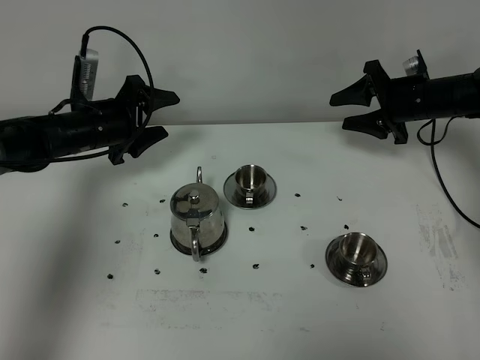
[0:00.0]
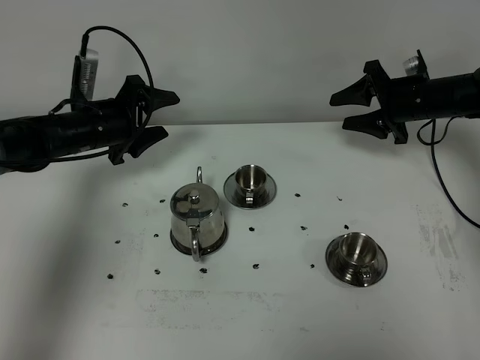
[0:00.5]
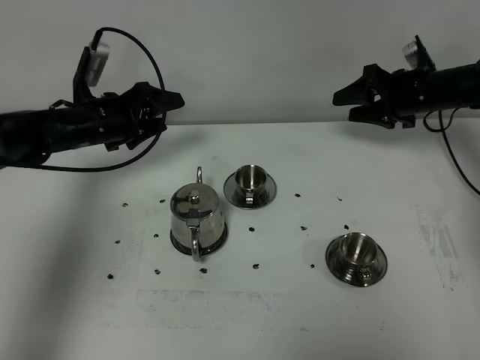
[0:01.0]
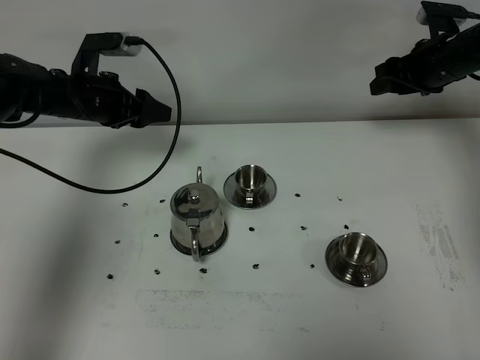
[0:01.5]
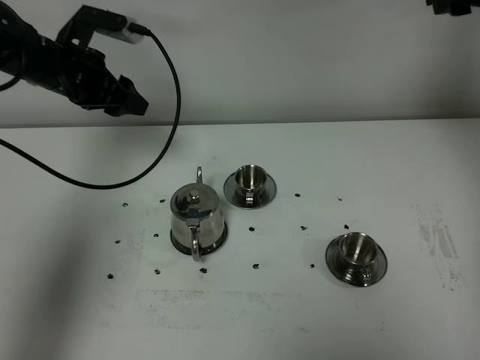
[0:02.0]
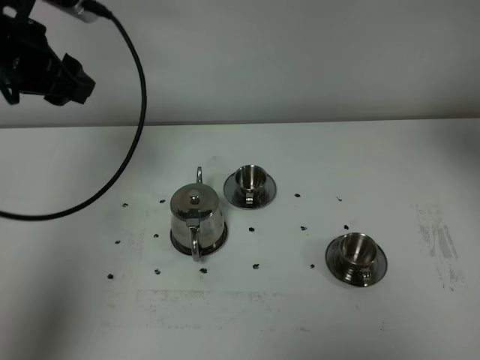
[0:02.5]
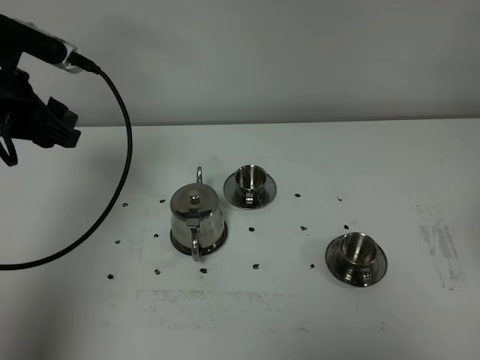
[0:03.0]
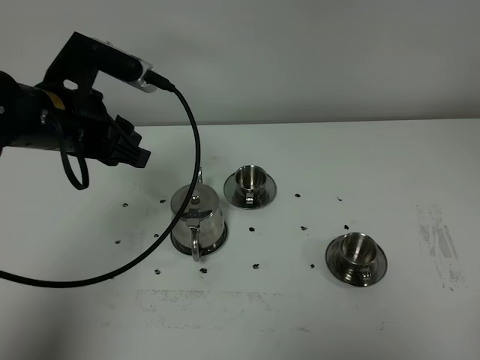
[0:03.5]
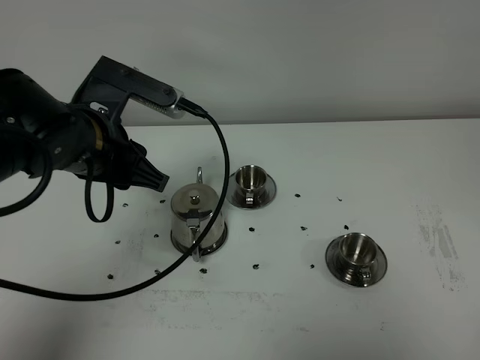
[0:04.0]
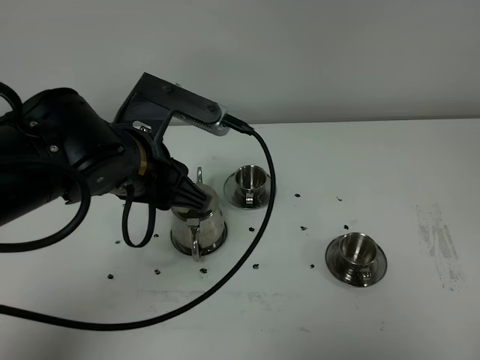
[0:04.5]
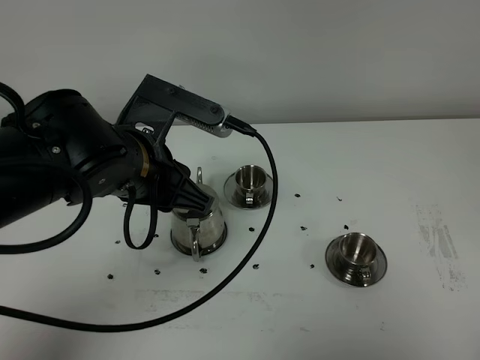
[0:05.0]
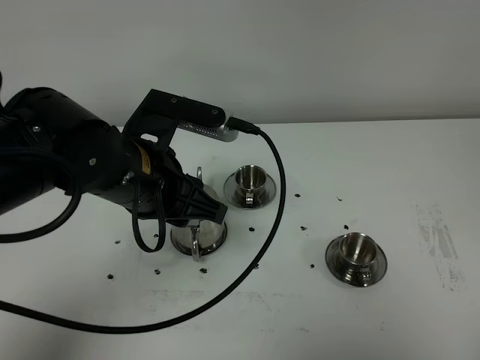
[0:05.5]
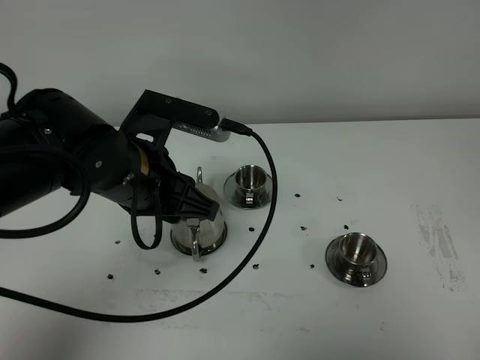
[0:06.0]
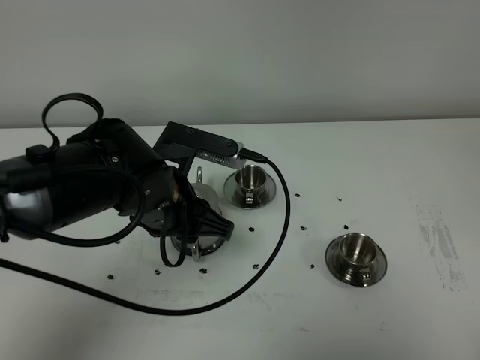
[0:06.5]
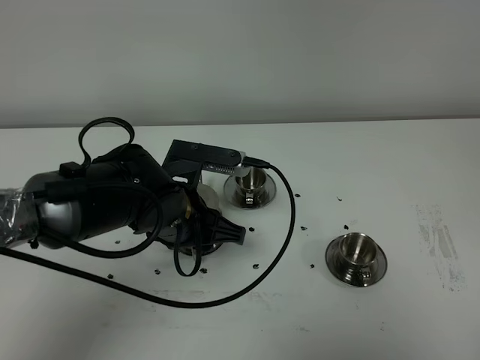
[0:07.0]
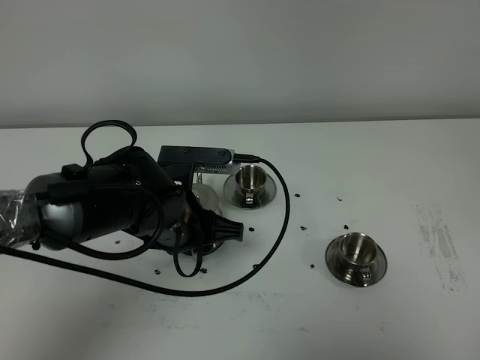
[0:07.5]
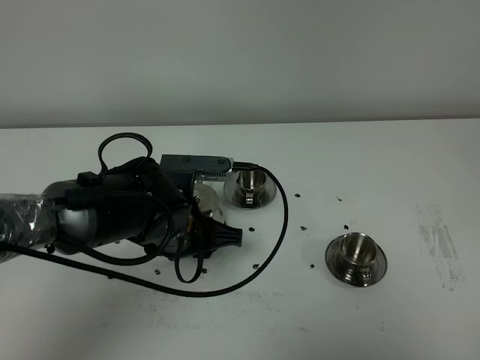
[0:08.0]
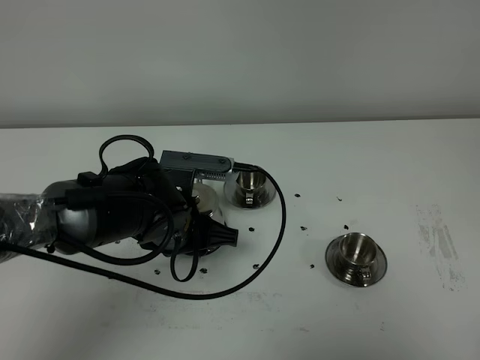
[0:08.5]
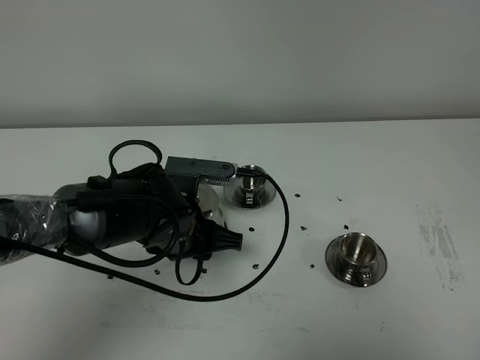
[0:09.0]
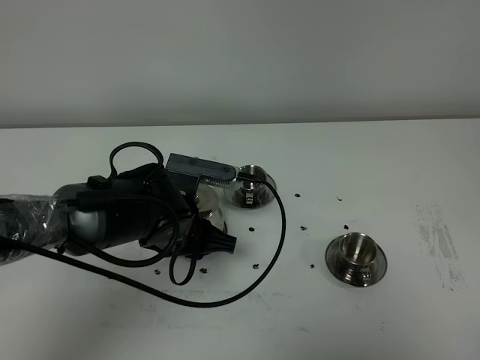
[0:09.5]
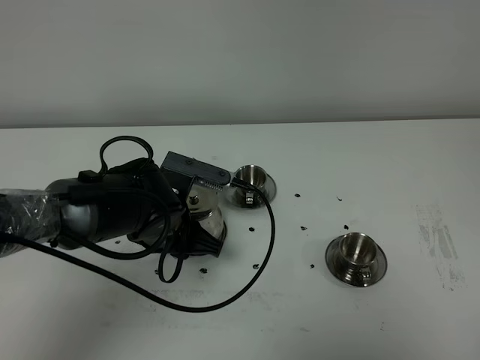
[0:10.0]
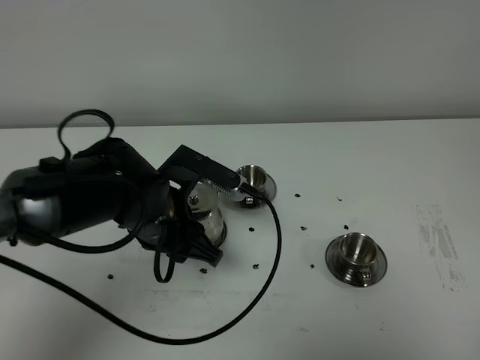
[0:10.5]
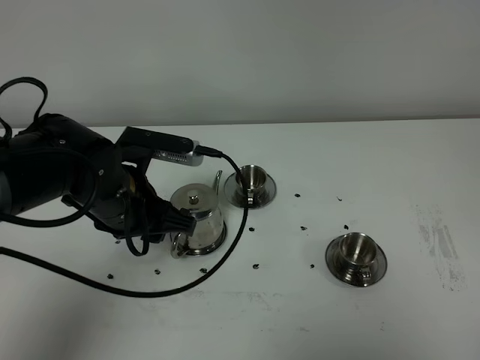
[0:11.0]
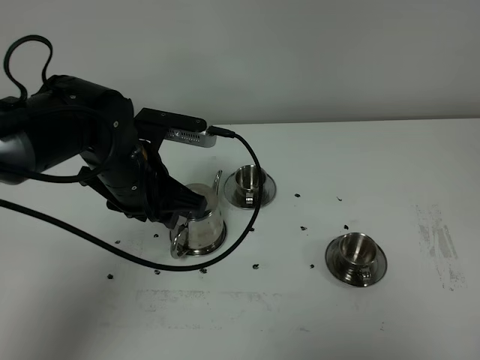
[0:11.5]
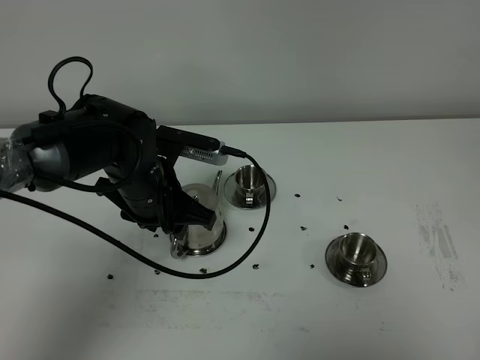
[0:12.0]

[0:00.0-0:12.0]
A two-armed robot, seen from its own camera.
Task of the whole recording: grasp the stainless steel teapot and pour the tea into the two stainless steel teacups one by one, put the stainless steel teapot back in its original place.
0:00.0 to 0:02.0: The left gripper is displaced upward by approximately 10 cm, while the right gripper travels upward by about 25 cm.
0:02.0 to 0:04.0: The right gripper shifts some 50 cm backward, and closes up. The left gripper heads backward and to the right, covering approximately 20 cm.
0:04.0 to 0:06.0: The left gripper shifts by about 5 cm.
0:06.0 to 0:08.0: The left gripper is displaced downward by roughly 10 cm.
0:08.0 to 0:10.0: The grippers move only a little.
0:10.0 to 0:12.0: The left gripper changes place by approximately 5 cm.

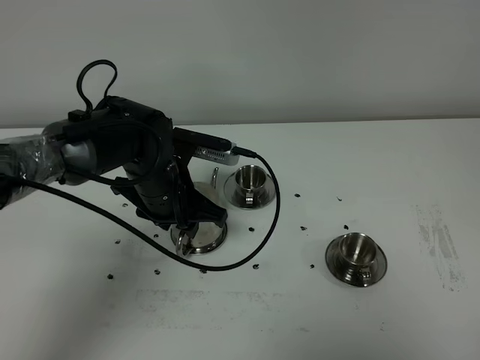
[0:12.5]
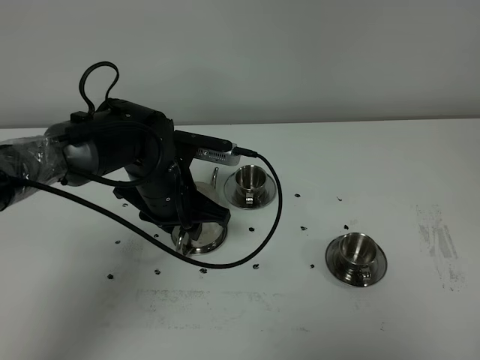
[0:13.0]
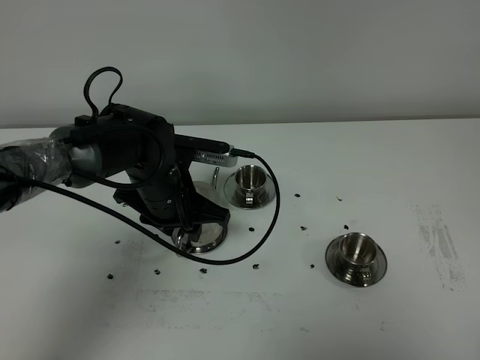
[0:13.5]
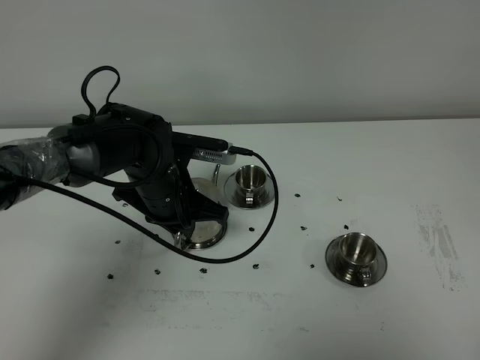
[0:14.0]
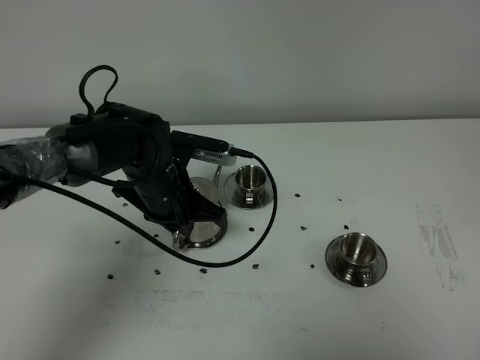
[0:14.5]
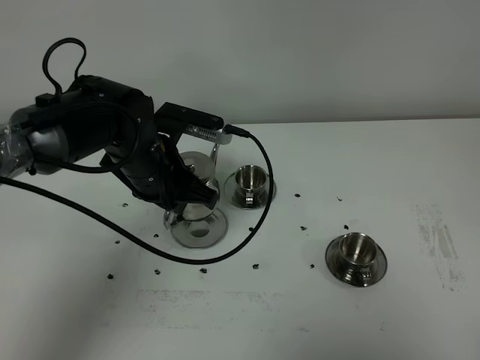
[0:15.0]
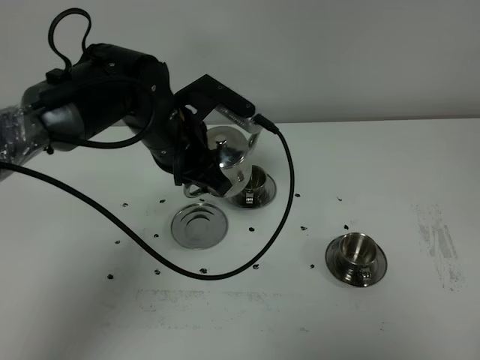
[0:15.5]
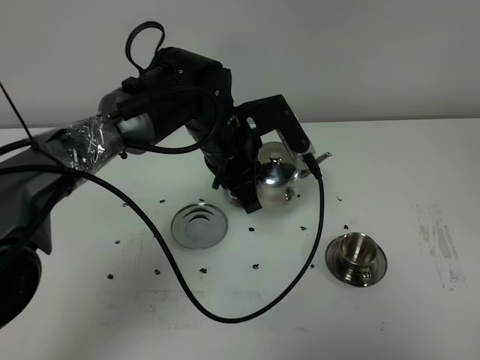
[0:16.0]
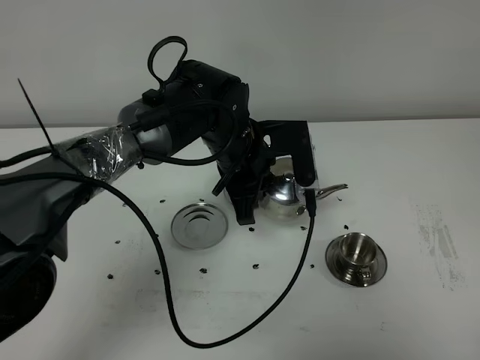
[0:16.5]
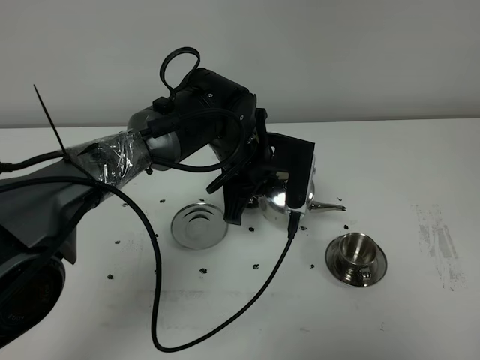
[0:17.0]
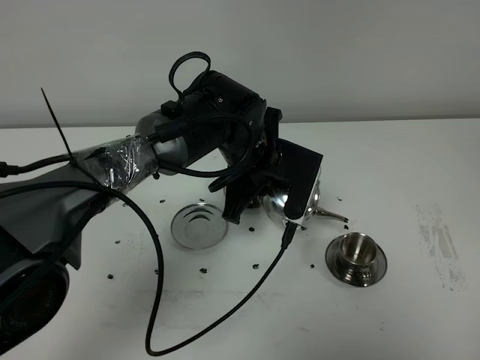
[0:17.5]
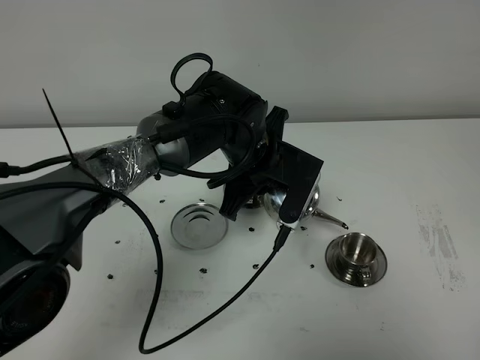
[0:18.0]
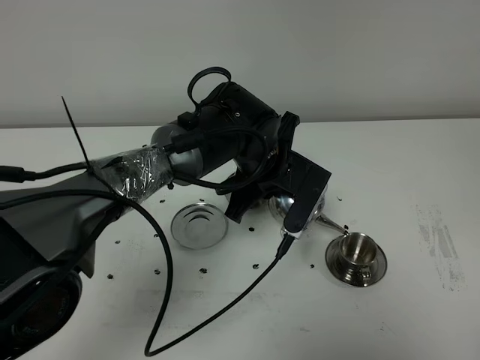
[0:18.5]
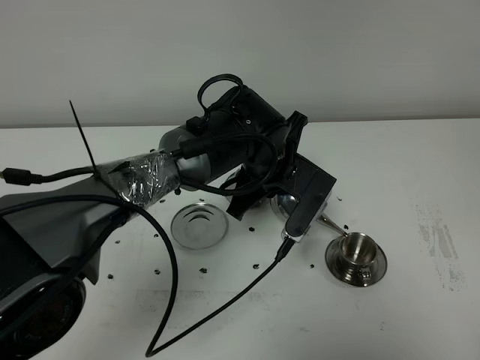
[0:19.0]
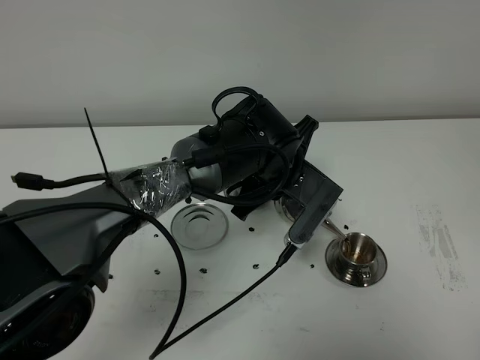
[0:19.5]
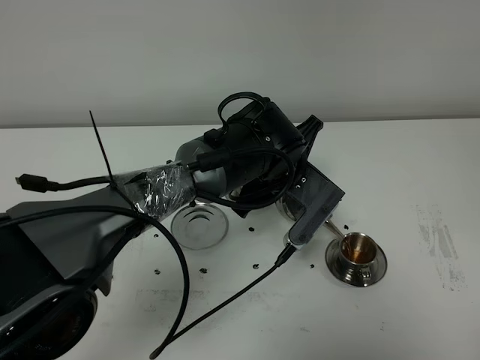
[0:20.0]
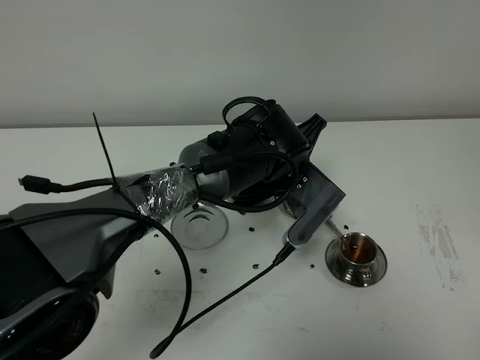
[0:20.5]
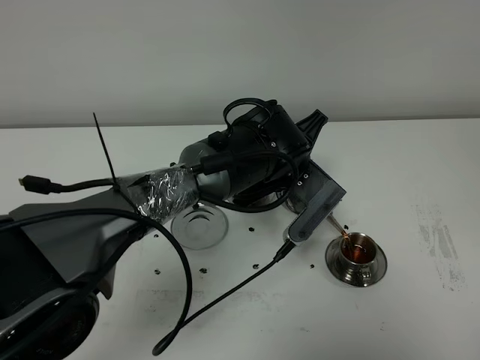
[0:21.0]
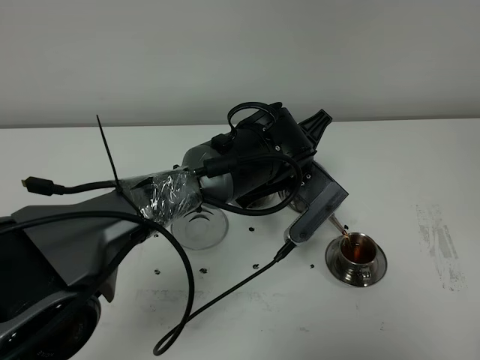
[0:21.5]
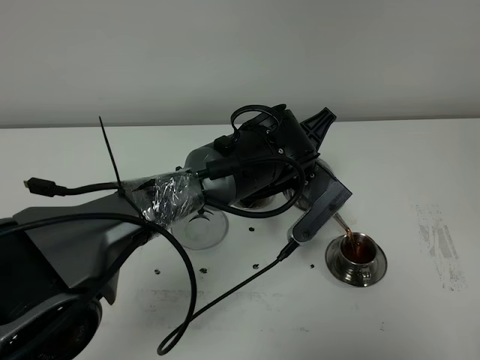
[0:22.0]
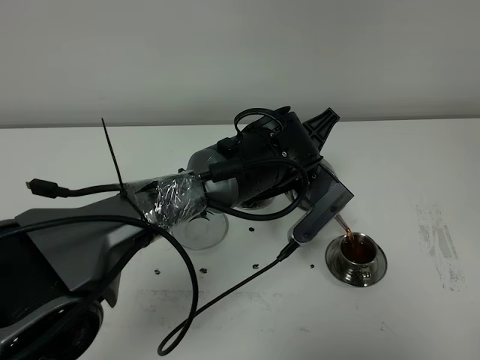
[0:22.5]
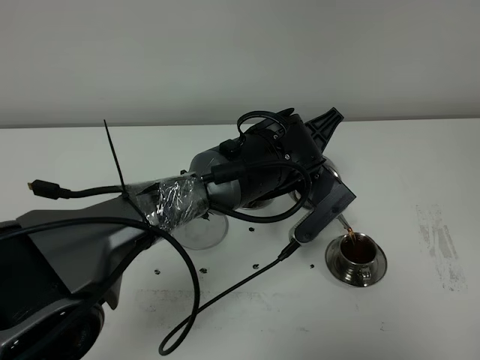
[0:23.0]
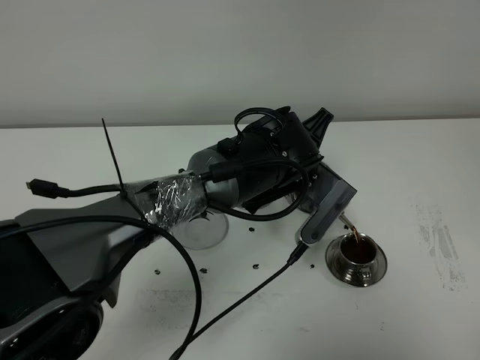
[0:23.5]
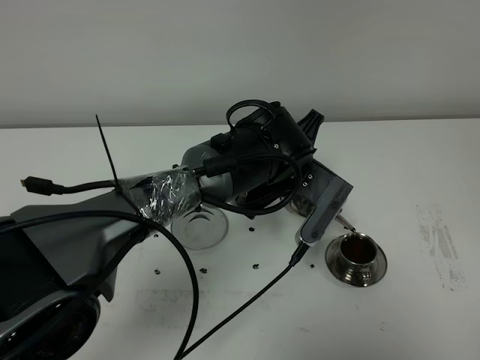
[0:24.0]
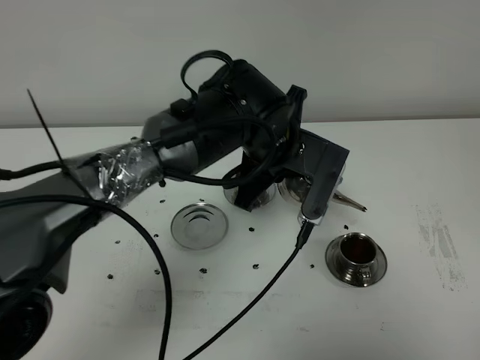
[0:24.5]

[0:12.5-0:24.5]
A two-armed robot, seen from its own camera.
Task of the whole recording: grasp the stainless steel teapot and pour the tea into the two stainless steel teacups one by one, put the stainless steel teapot back in its original place.
Step, 0:12.5 to 0:14.5: Pick up the teapot with the left gripper.
0:12.5 to 0:14.5: The left gripper closes its fingers.
0:14.5 to 0:16.5: The left gripper shifts about 10 cm to the right.
0:18.5 to 0:20.5: The grippers move only a little.
0:20.5 to 0:22.5: There are only small adjustments of the grippers.
0:22.5 to 0:24.5: The left gripper changes place by some 5 cm.

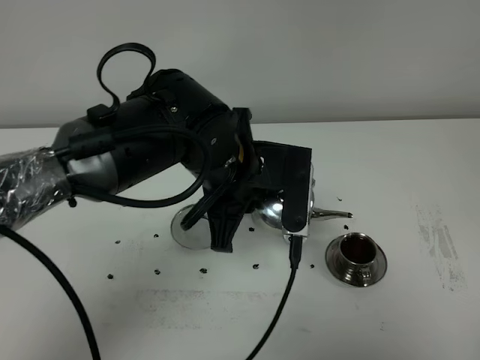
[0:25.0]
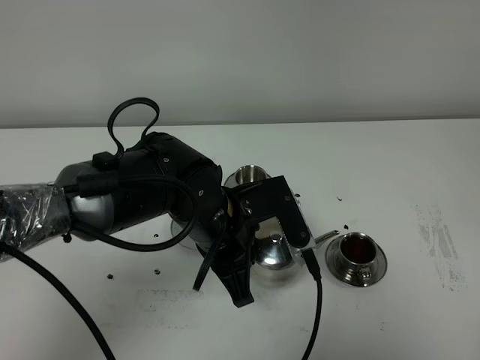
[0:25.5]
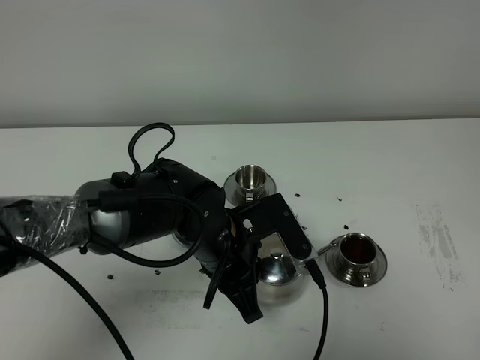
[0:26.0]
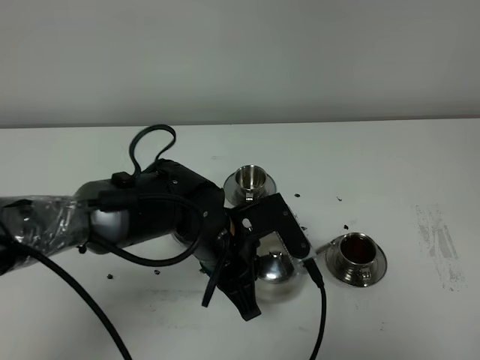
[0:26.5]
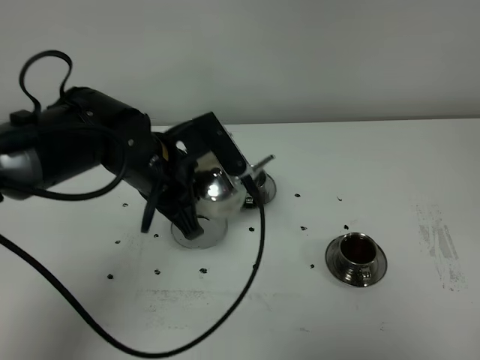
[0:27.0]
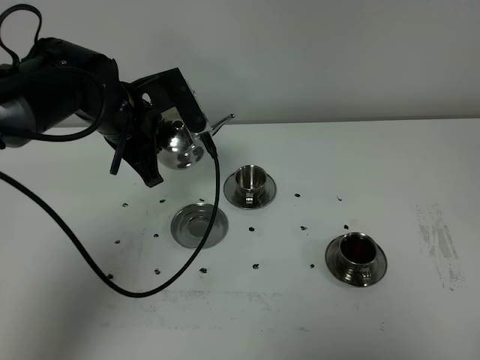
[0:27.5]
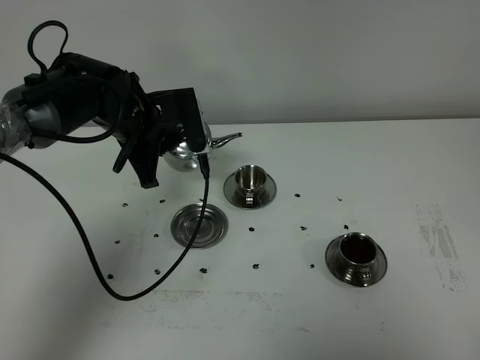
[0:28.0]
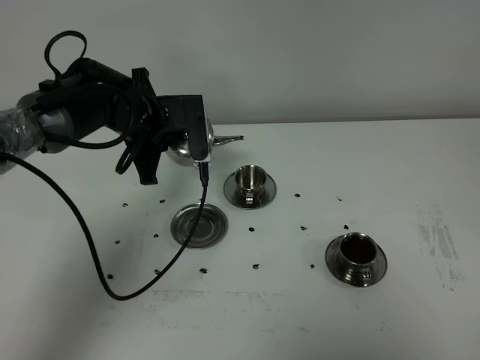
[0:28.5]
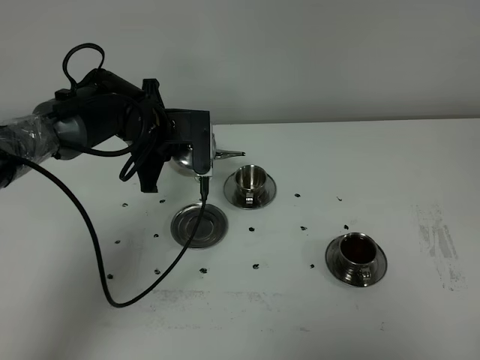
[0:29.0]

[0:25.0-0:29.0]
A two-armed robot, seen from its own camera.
Task of the whole recording: grasp the stainless steel teapot and pour the tea into the two stainless steel teacups one by one, put the stainless steel teapot back in its original place.
0:25.0 to 0:27.0: The left gripper goes some 10 cm to the left, and moves about 10 cm downward and comes back.
0:27.0 to 0:29.0: The left gripper moves forward, approximately 10 cm.
